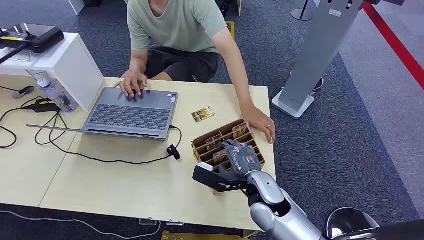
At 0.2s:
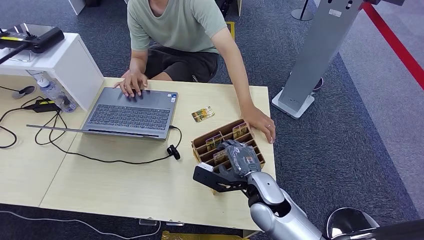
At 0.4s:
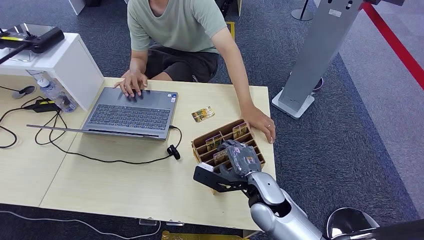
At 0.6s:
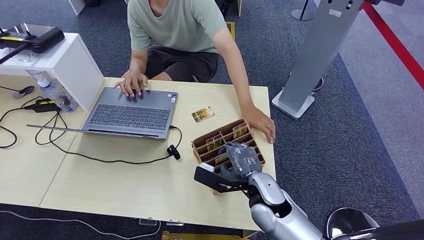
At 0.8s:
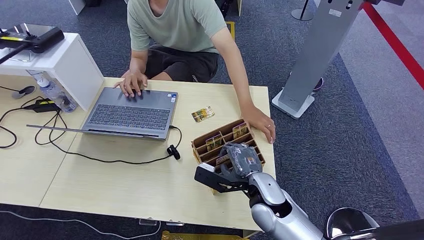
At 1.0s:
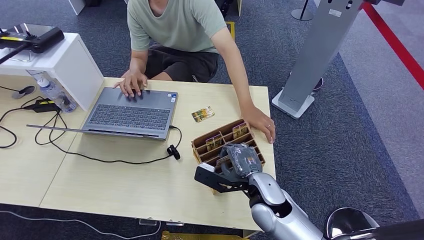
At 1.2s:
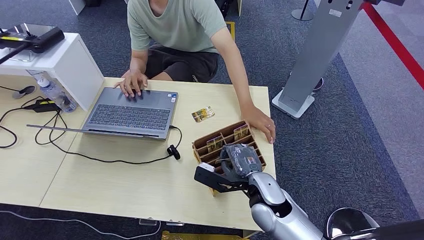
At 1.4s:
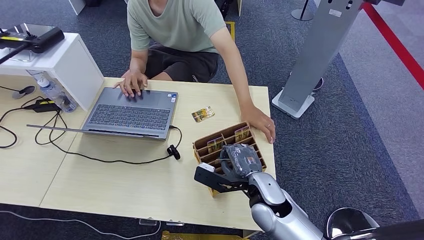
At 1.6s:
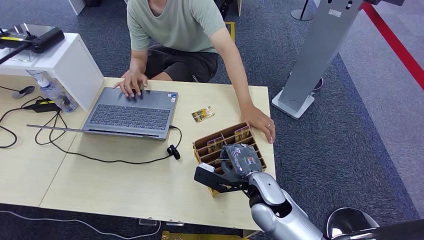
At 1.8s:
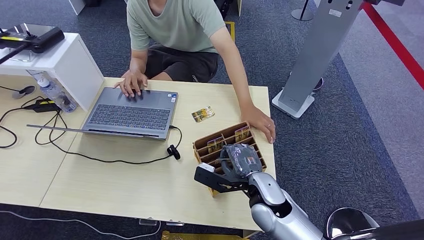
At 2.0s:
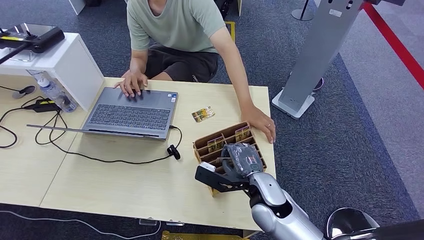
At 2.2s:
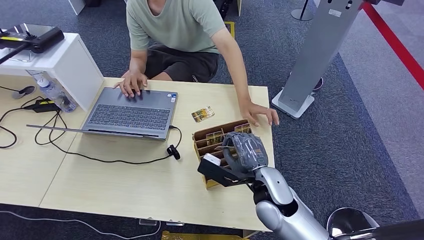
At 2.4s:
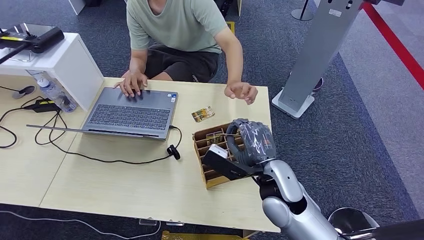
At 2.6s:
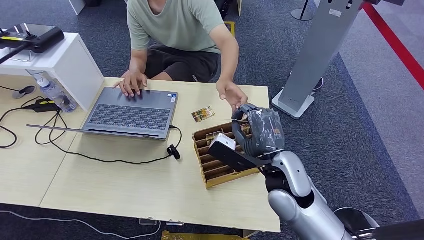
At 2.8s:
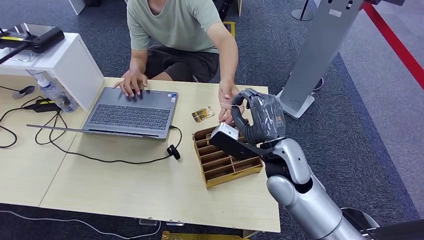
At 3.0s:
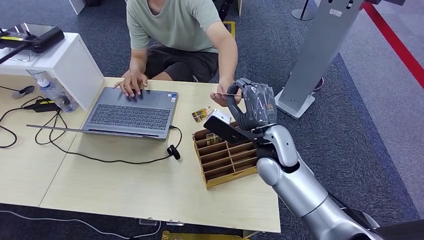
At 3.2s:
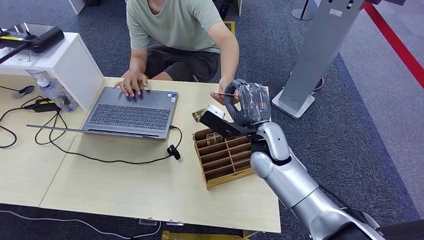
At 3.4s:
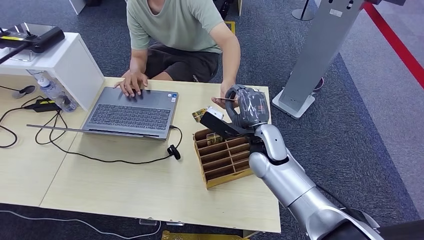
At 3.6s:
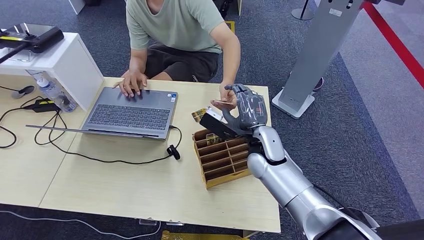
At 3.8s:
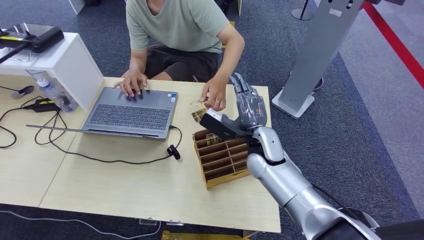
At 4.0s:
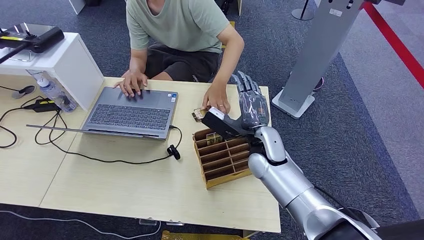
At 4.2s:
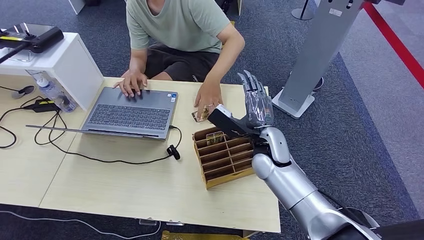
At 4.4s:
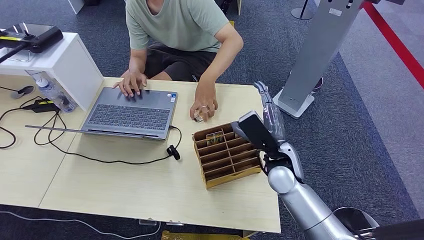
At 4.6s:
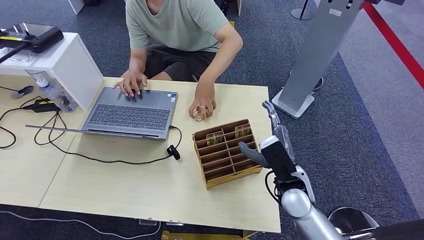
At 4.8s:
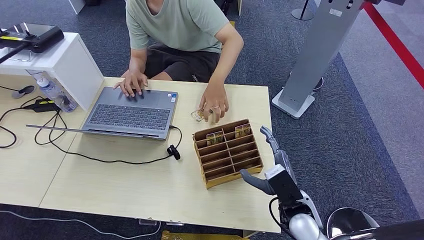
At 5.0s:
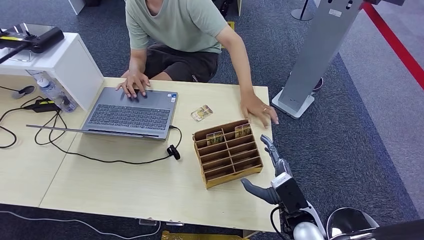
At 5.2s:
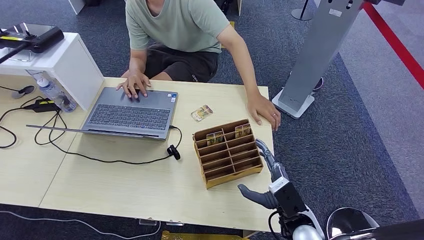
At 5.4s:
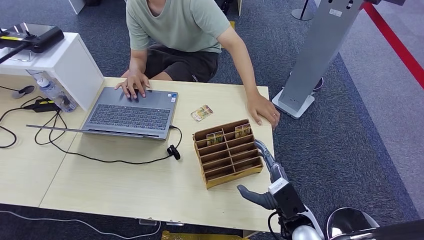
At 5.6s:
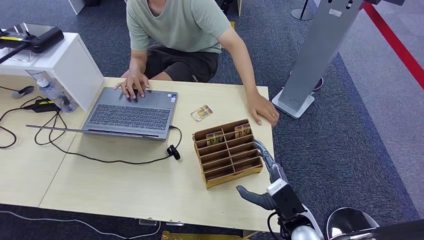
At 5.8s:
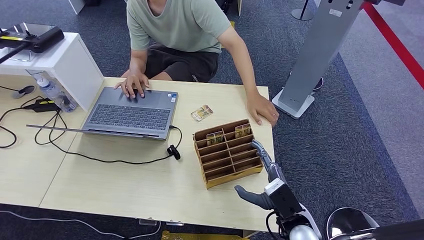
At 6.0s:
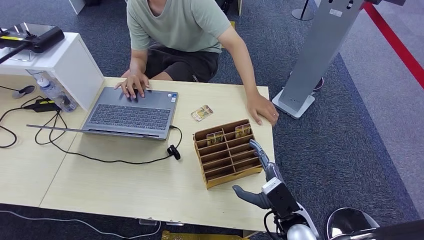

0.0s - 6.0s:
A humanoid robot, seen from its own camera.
Step, 0.0s - 2.2s: Pick up the room card from the card holder.
Step, 2.4s - 6.0s: Hand the room card to the target.
1.6s - 3.0s: The right hand goes about 10 cm upward and forward.
3.0s - 4.4s: The right hand moves downward, roughly 5 cm.
4.4s - 6.0s: The right hand is displaced backward and downward by some 15 cm.

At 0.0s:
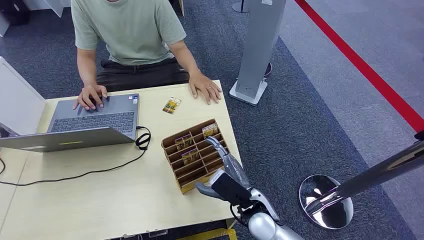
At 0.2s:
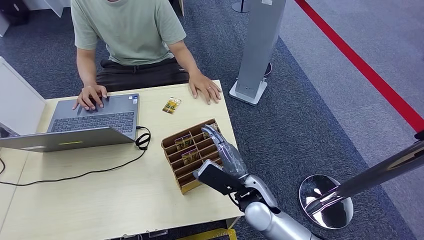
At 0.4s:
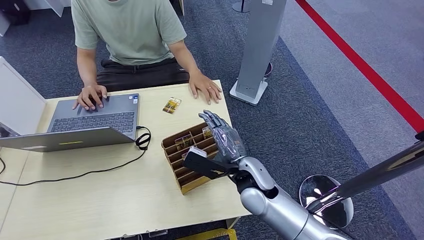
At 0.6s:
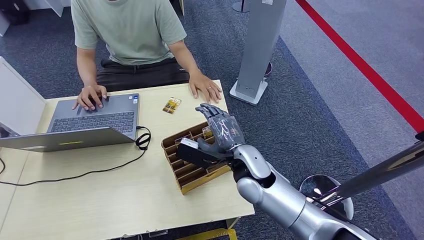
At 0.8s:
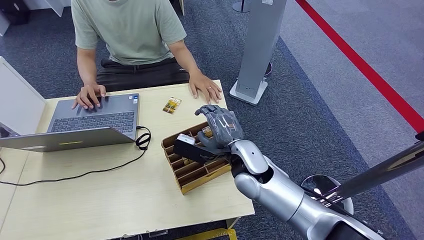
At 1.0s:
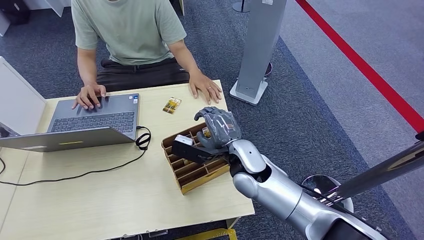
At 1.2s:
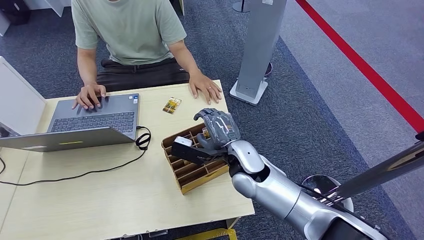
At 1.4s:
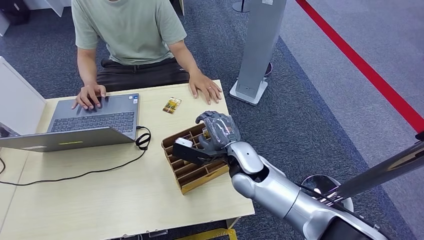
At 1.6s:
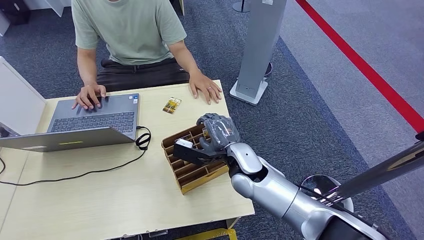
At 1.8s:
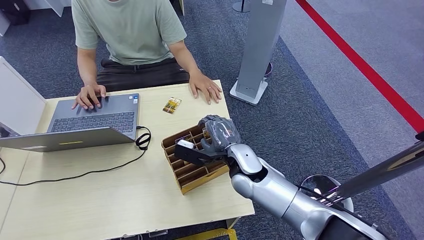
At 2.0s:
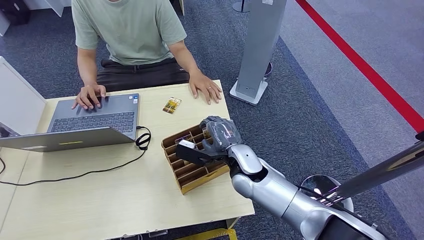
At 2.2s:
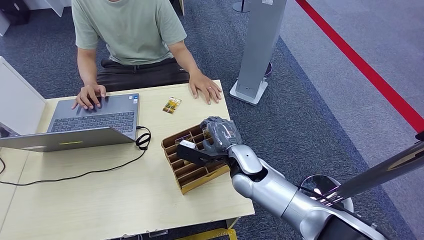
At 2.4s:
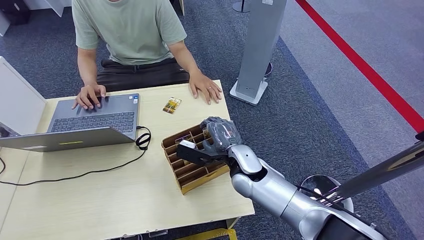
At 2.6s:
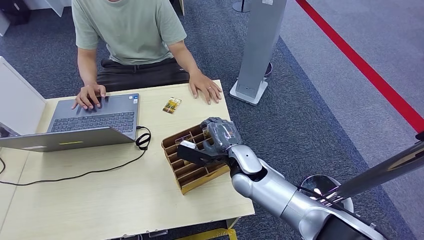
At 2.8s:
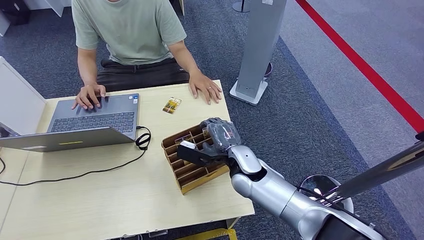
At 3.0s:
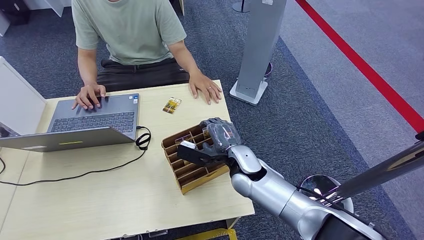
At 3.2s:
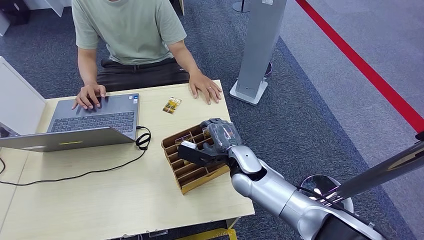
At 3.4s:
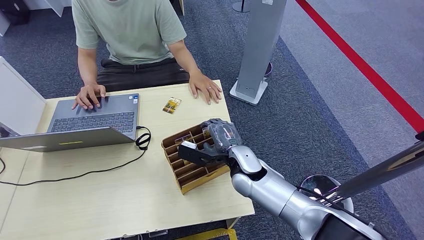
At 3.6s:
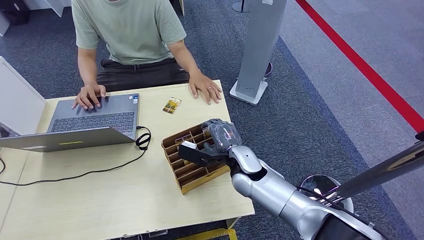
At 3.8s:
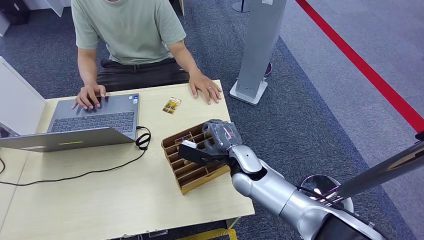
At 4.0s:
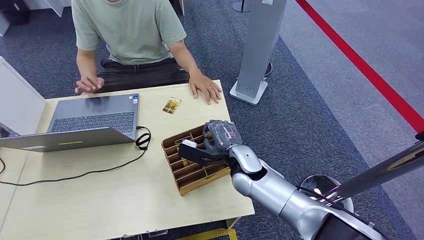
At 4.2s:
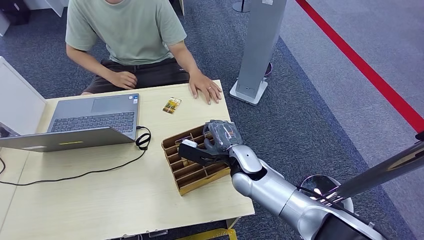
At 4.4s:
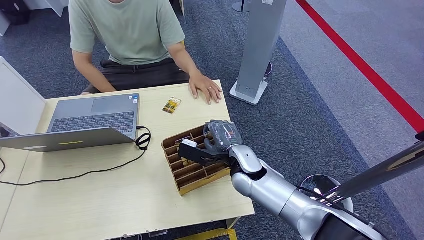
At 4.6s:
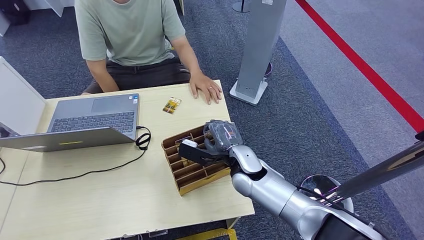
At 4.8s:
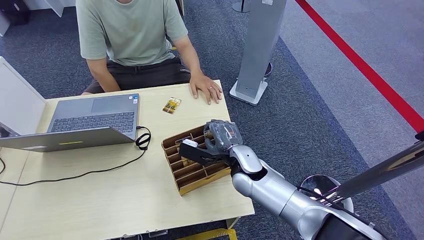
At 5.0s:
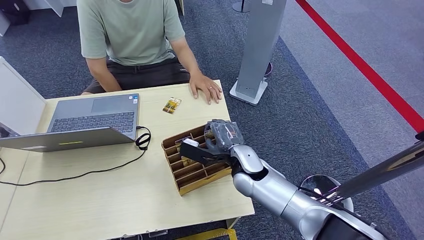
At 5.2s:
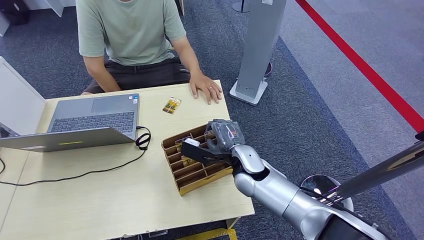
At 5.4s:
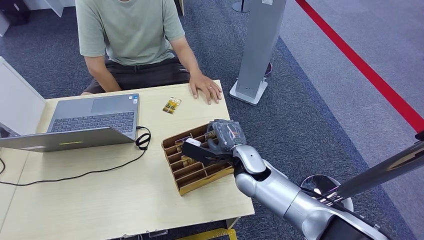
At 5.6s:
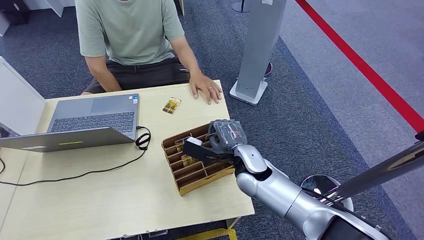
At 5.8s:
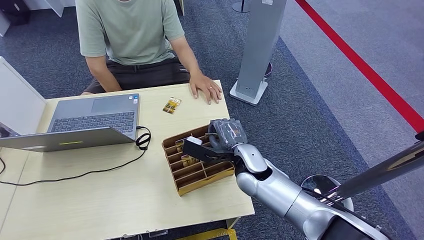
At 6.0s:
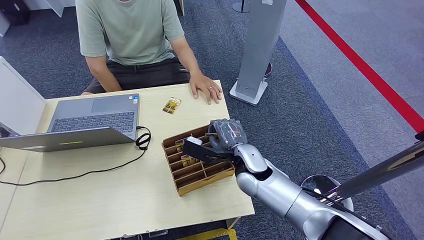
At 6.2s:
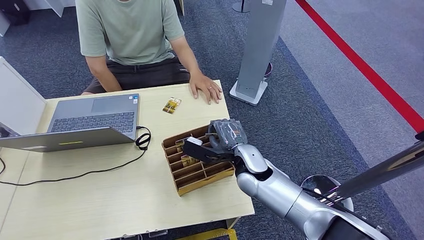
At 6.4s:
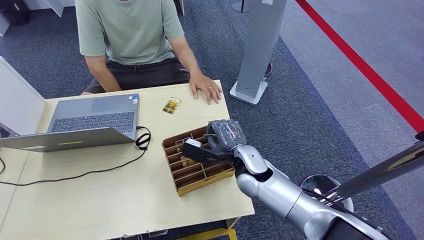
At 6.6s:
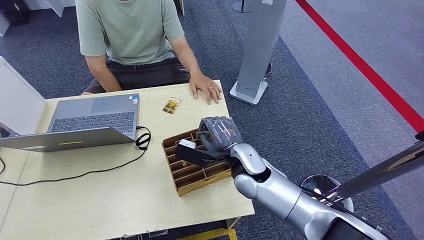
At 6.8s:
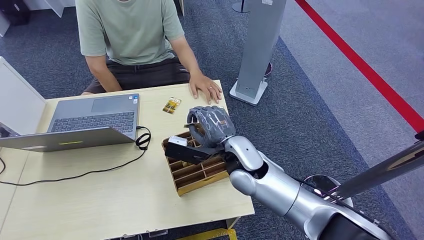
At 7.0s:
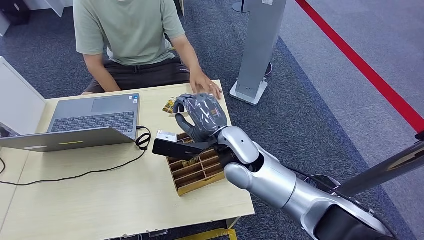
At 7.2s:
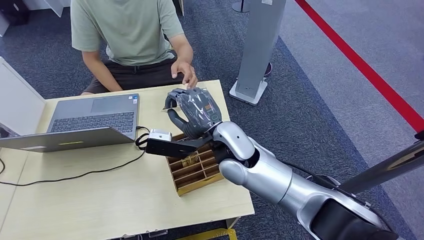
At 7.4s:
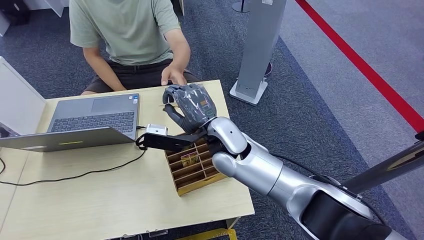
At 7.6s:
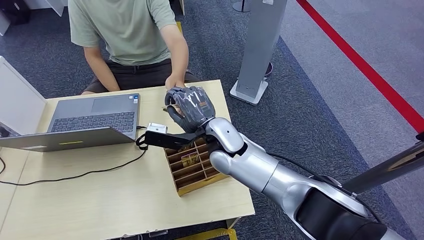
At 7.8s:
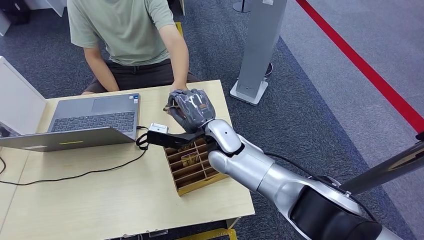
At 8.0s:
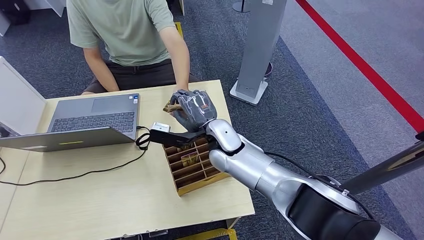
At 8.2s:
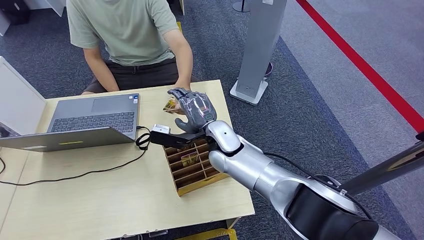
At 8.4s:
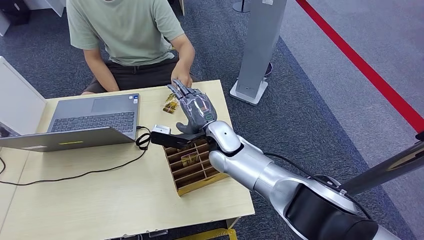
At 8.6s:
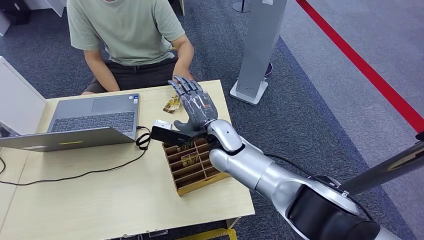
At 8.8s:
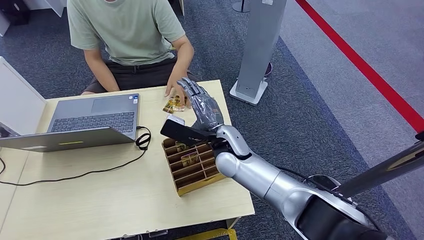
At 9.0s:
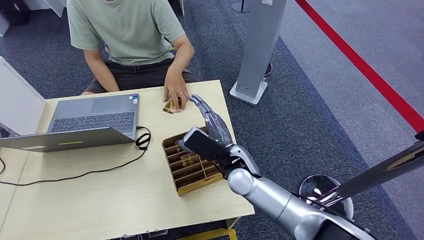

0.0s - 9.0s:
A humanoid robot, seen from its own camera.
Step, 0.0s - 7.2s: Pick up the room card from the card holder.
Step, 7.6s - 9.0s: Hand the room card to the target.
1.6s - 3.0s: The hands move only a little.
3.0s - 4.4s: Neither hand changes place.
4.4s - 6.0s: The hands move only a little.
6.0s - 7.6s: The right hand is displaced upward and to the left by roughly 10 cm.
7.6s - 9.0s: The right hand shifts roughly 5 cm downward.

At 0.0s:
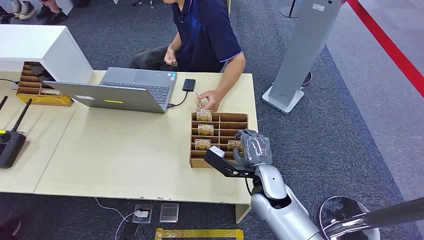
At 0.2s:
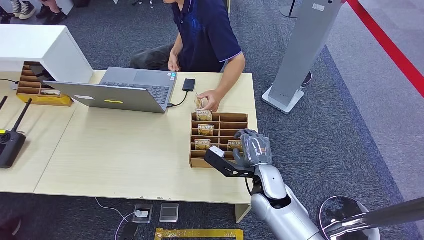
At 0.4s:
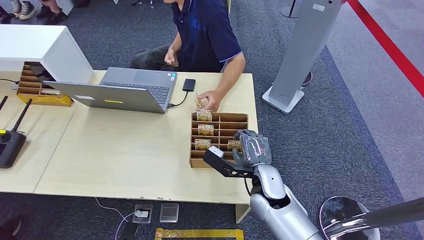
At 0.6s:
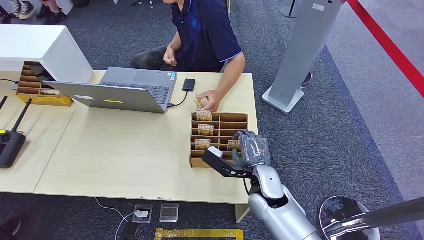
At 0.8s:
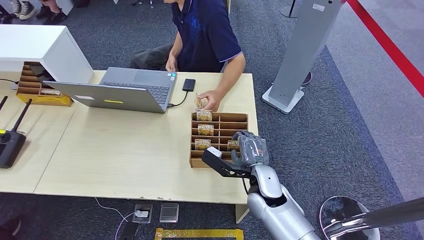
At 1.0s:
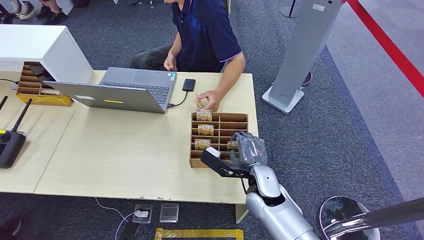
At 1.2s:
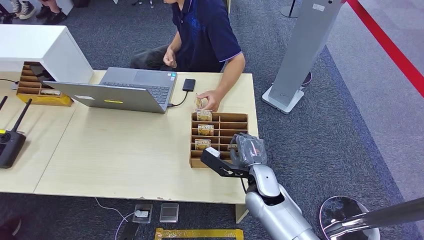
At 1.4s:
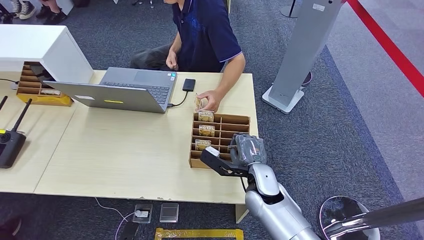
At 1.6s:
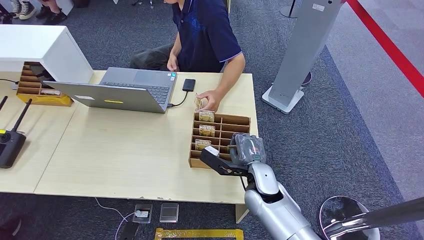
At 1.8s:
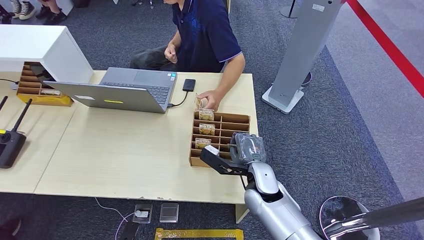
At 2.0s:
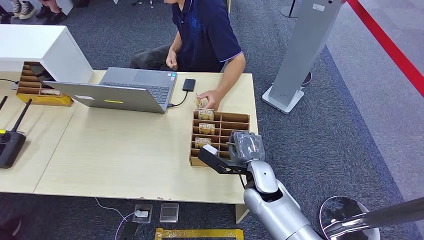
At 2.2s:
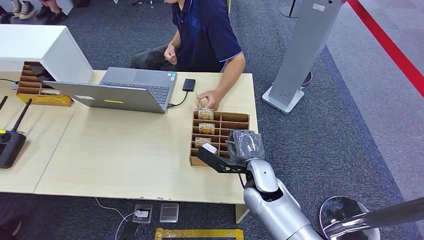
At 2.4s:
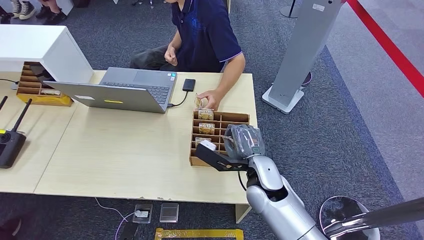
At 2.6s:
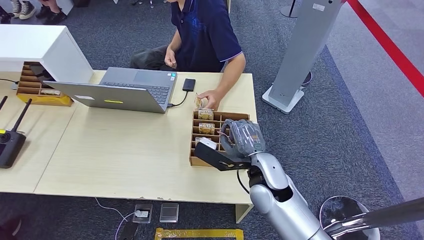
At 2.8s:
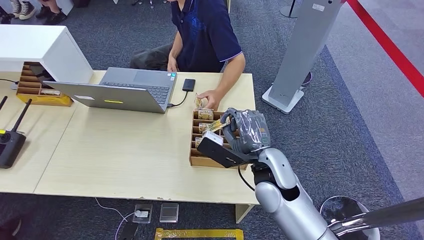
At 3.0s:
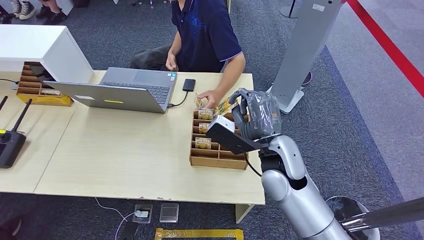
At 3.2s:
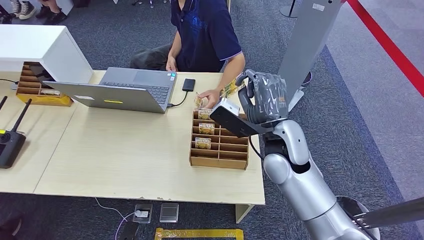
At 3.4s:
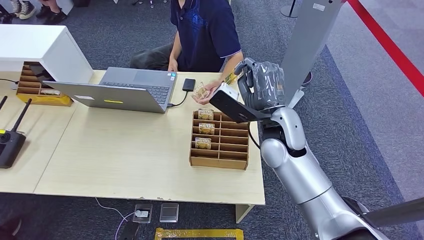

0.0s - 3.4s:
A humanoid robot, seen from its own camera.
Step, 0.0s - 2.2s: Pick up the room card from the card holder.
1.6s - 3.4s: The right hand shifts approximately 15 cm upward.
